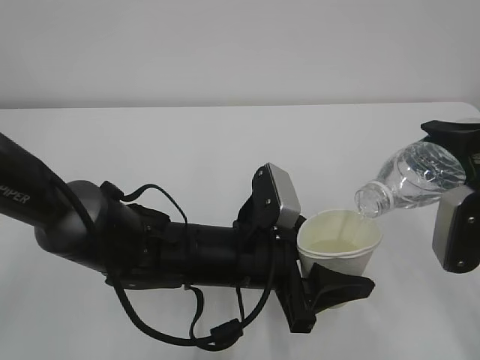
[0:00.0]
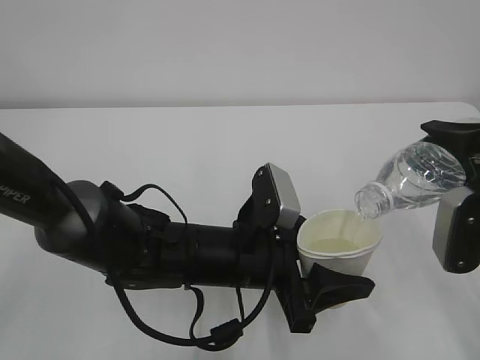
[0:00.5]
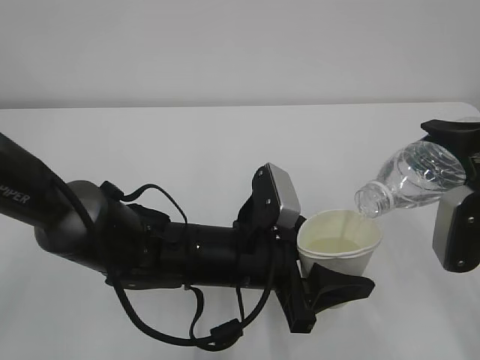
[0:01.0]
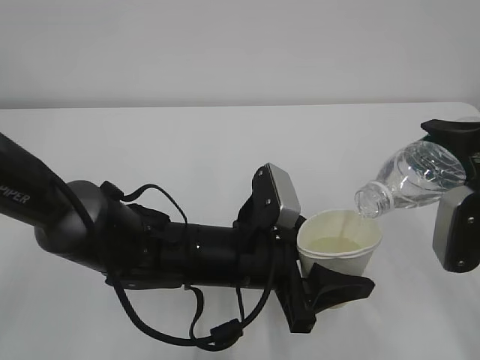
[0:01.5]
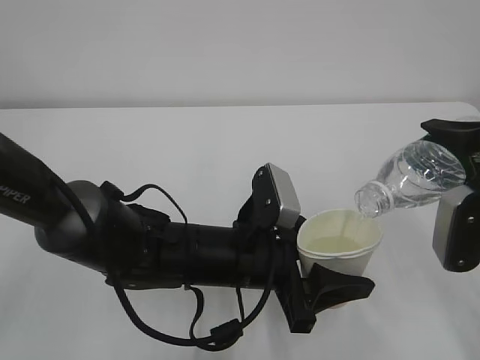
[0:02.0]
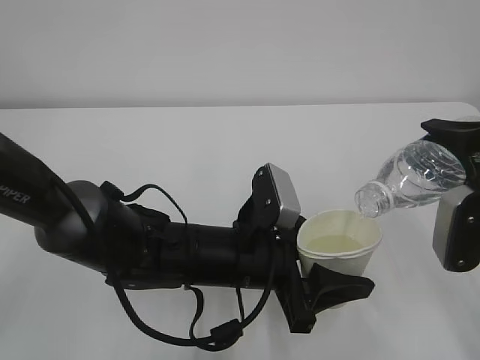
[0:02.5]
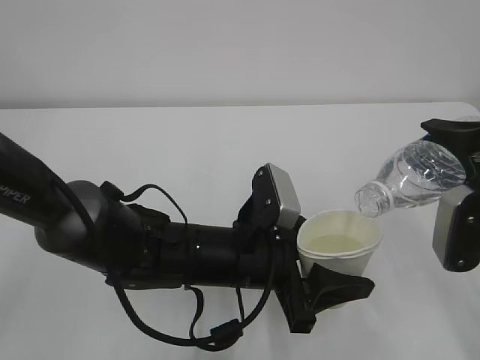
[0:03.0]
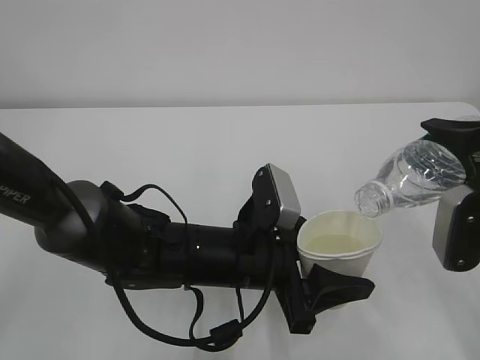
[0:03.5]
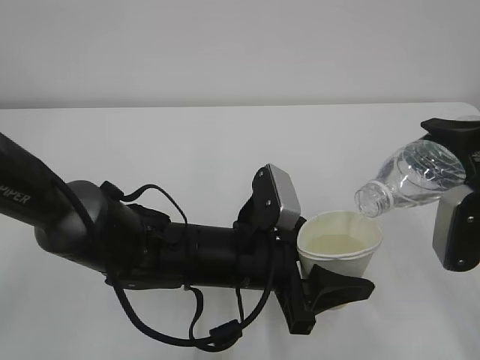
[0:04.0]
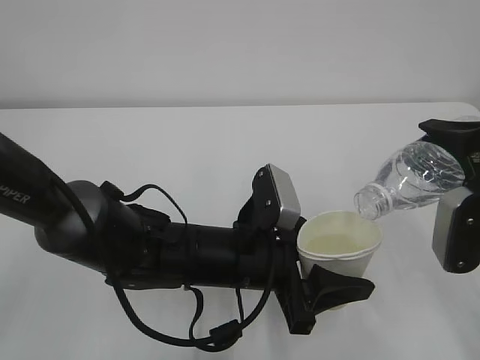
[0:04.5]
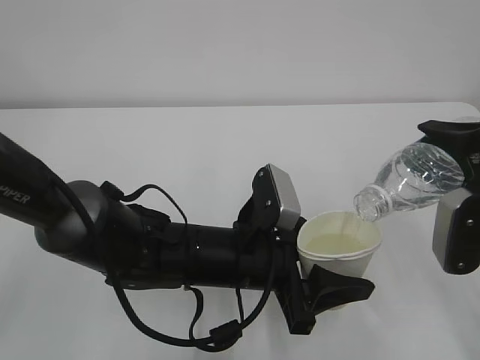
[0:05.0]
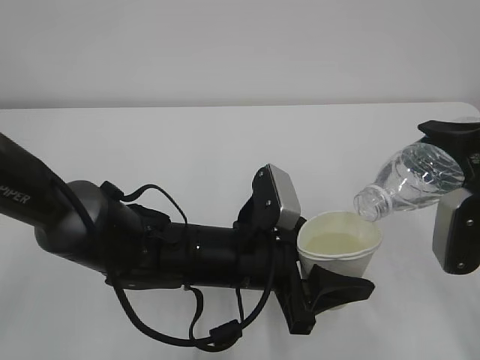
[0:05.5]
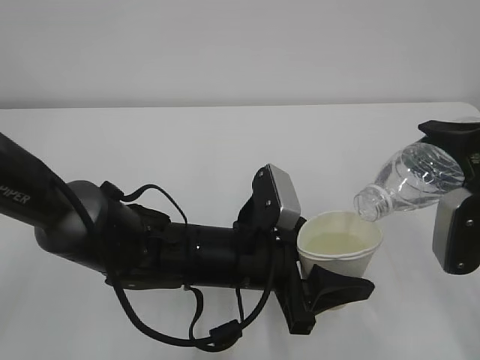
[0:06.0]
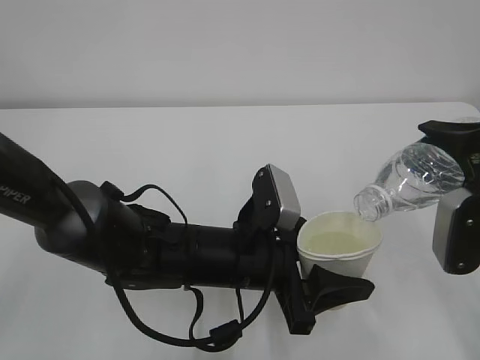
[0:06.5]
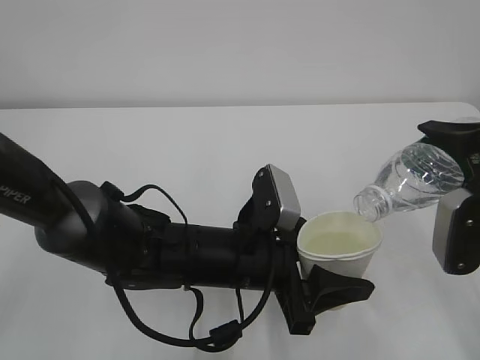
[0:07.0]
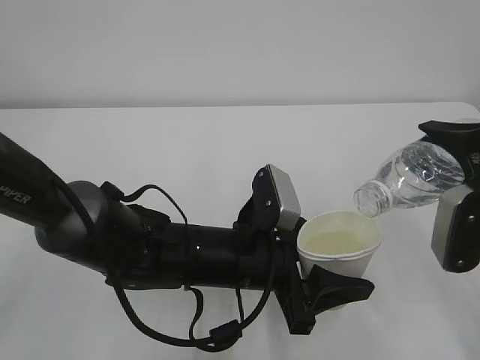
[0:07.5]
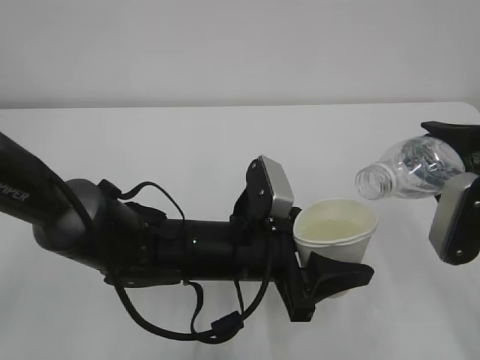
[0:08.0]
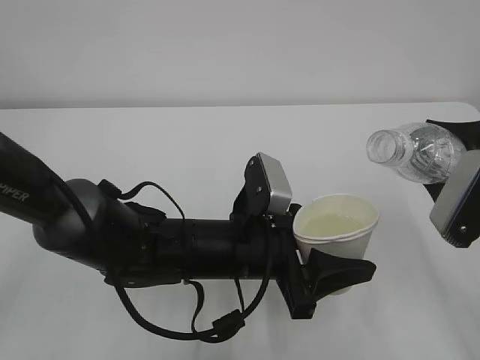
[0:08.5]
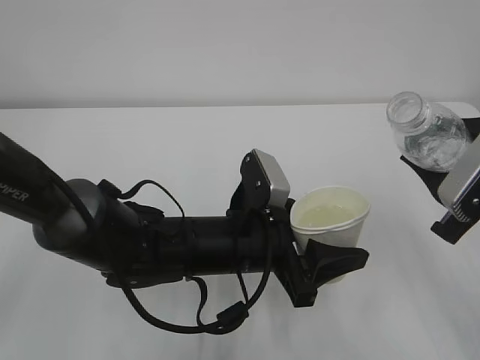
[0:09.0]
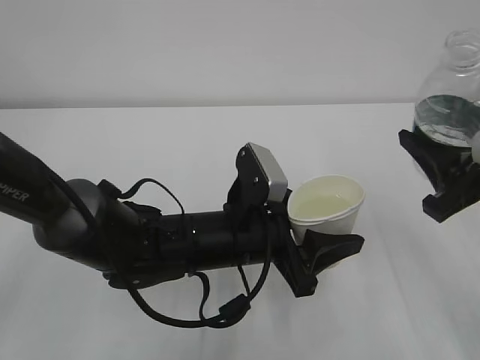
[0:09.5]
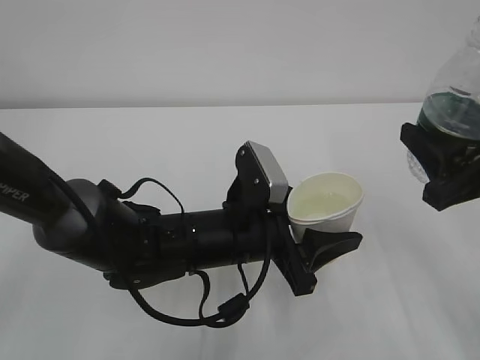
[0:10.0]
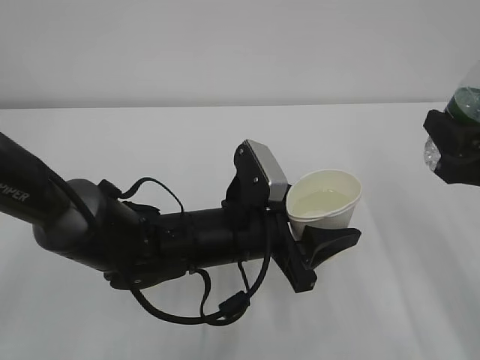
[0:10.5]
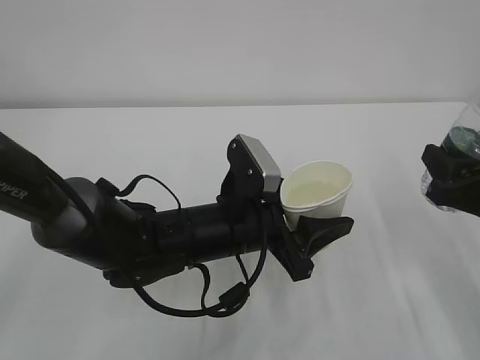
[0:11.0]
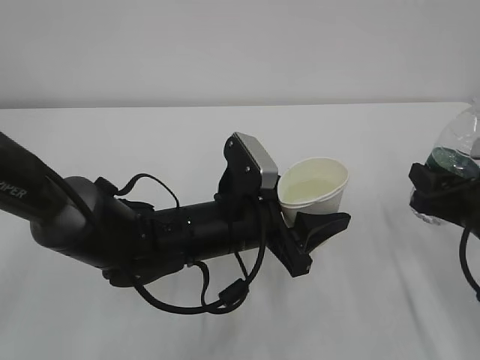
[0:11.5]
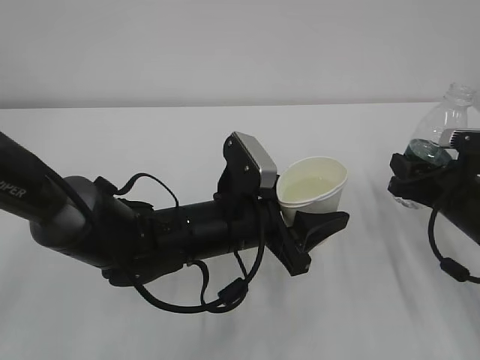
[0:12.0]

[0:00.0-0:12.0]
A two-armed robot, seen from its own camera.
0:00.0 to 0:06.0: Both grippers stay about where they are.
0:06.0 to 0:08.0: The grippers move only a little.
0:10.0 to 0:12.0: The right gripper travels downward and forward by some 15 cm.

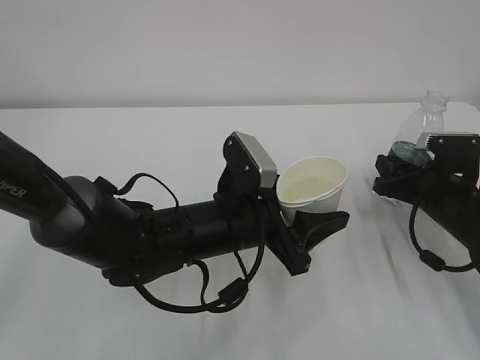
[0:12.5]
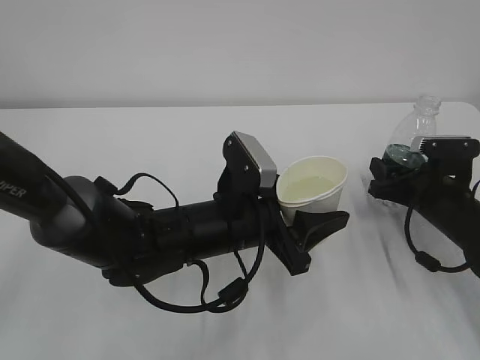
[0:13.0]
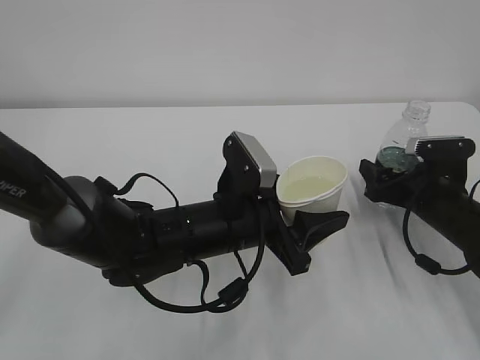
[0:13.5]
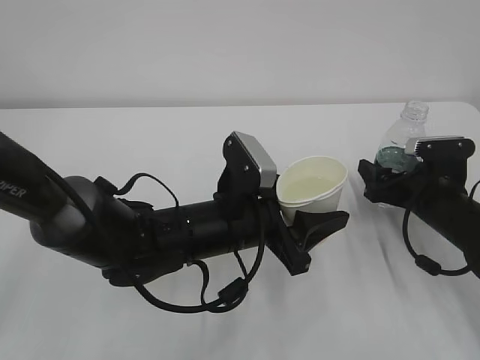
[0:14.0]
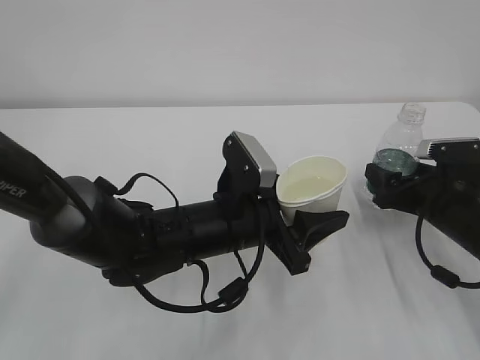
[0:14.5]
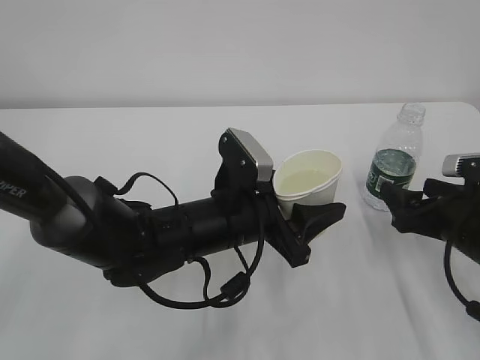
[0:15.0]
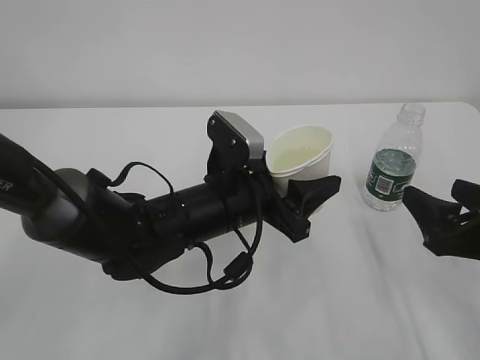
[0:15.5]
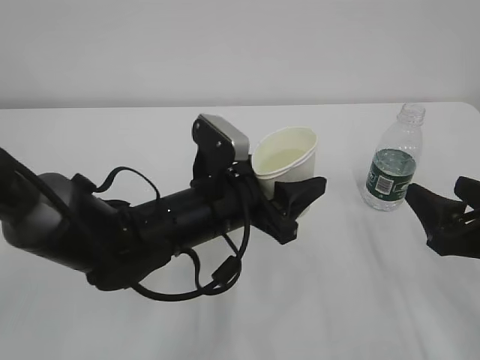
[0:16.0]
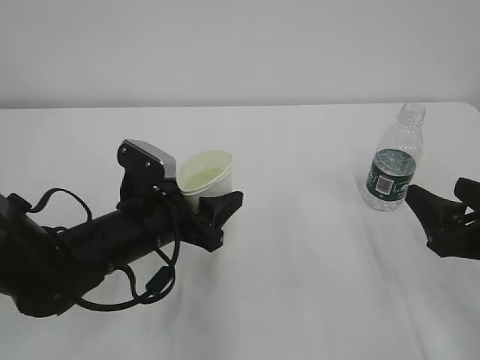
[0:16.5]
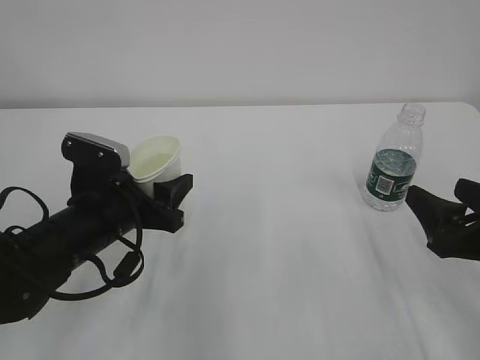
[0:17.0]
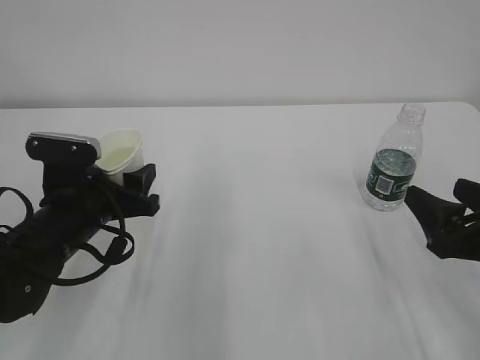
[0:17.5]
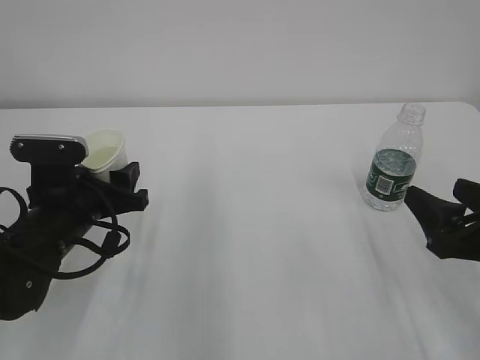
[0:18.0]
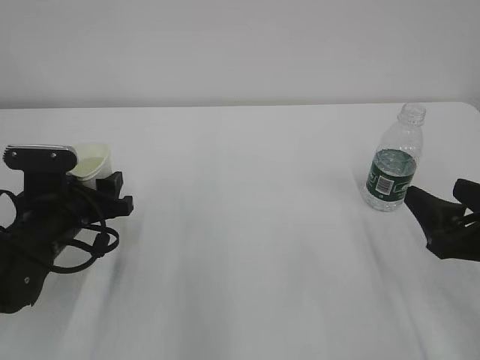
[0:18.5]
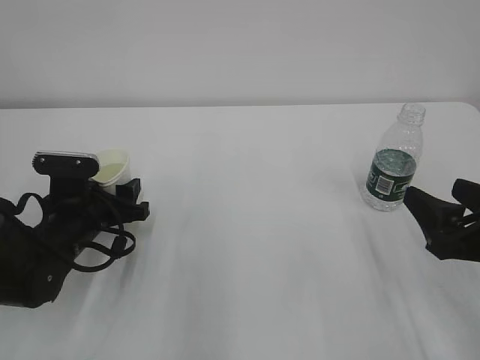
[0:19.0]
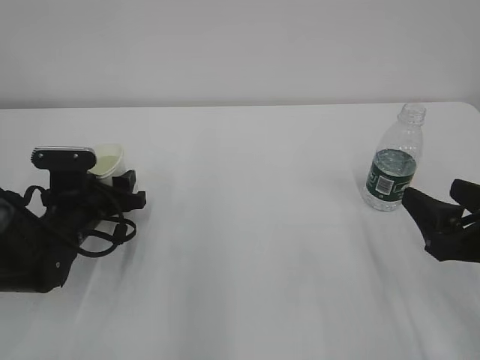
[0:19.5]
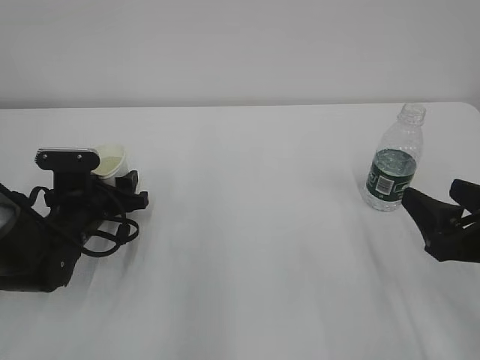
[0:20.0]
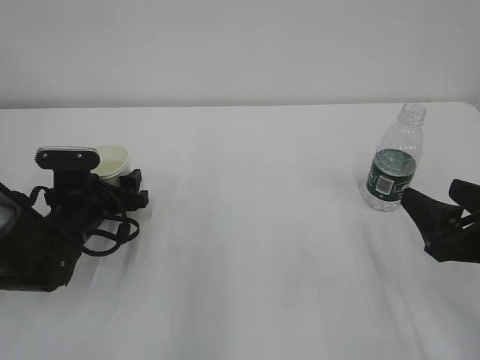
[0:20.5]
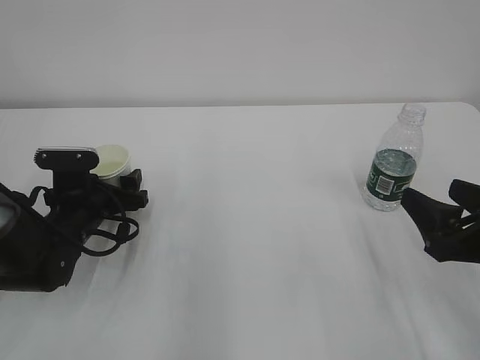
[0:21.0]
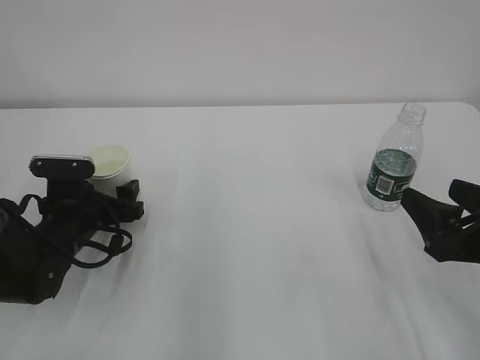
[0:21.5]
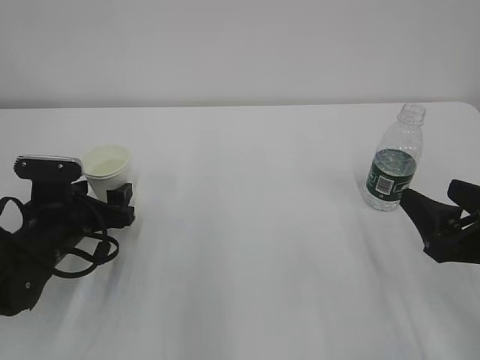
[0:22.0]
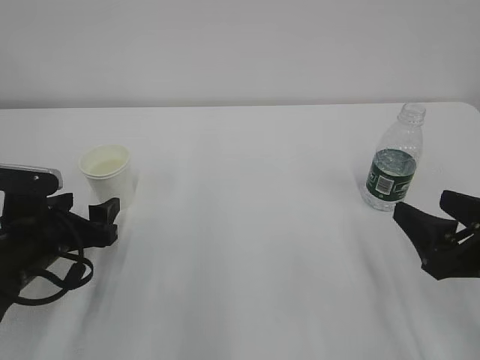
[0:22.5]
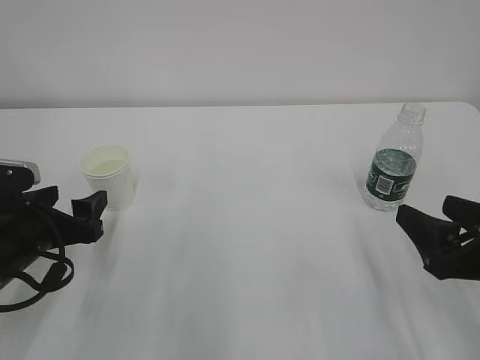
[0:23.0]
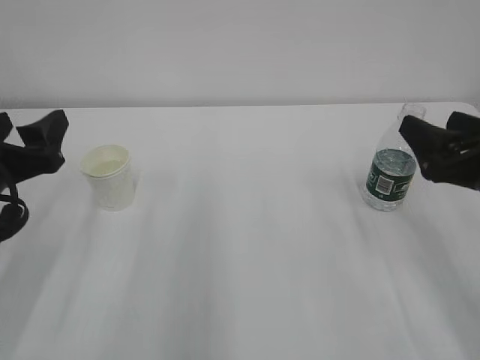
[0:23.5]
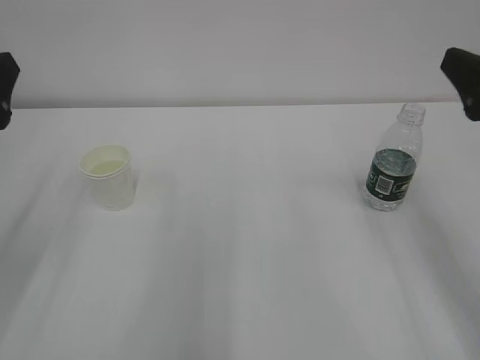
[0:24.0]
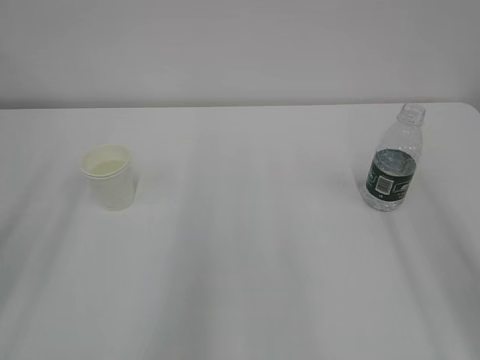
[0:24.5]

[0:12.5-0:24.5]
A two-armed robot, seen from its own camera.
0:12.5 to 0:14.5: The right gripper opens.
0:14.5 to 0:16.5: The right gripper shifts roughly 15 cm backward and upward, while the left gripper shifts some 10 cm to the left.
0:16.5 to 0:18.5: The left gripper goes roughly 10 cm to the left.
0:18.5 to 0:20.5: The left gripper shifts by about 5 cm, and opens up.
0:20.5 to 0:22.5: The left gripper shifts roughly 5 cm backward.
0:22.5 to 0:24.5: The left gripper travels upward and backward by approximately 20 cm. The right gripper goes some 20 cm upward.
